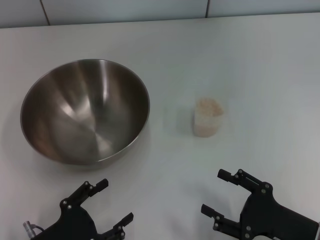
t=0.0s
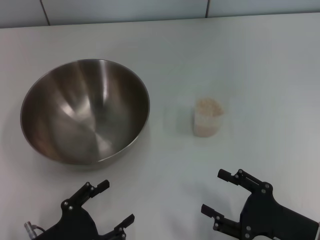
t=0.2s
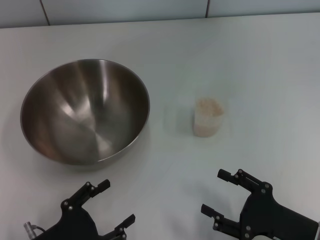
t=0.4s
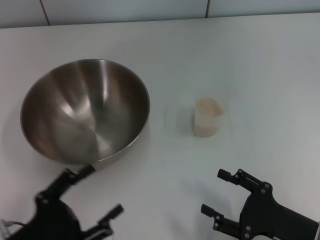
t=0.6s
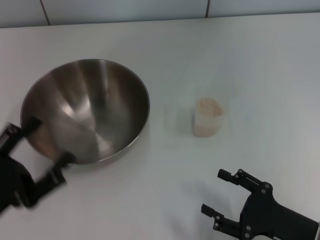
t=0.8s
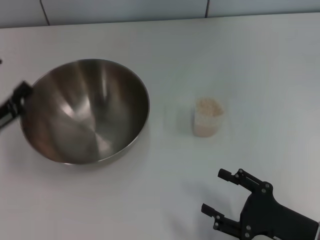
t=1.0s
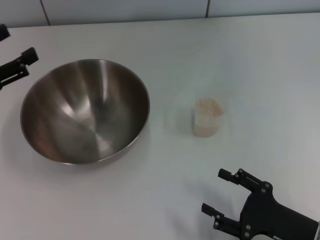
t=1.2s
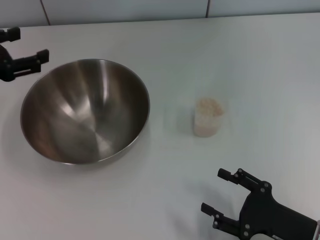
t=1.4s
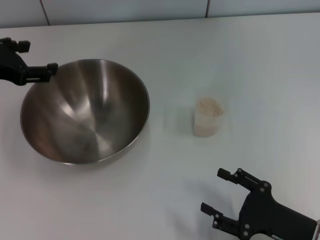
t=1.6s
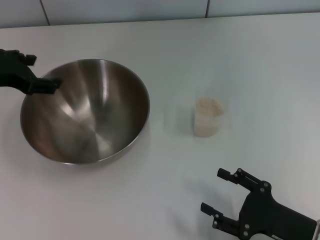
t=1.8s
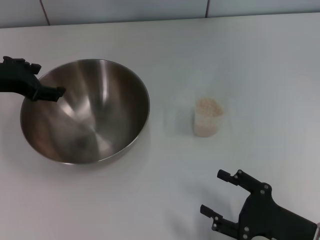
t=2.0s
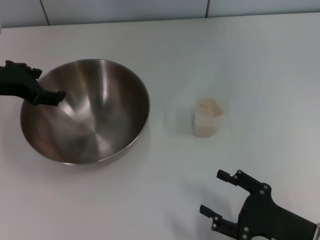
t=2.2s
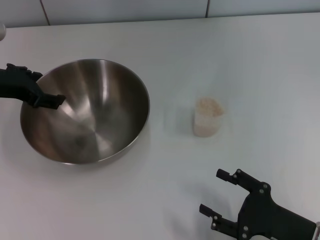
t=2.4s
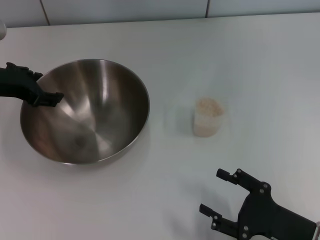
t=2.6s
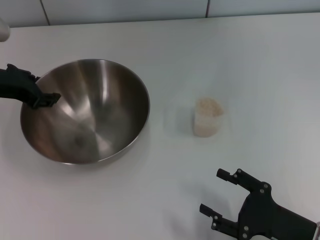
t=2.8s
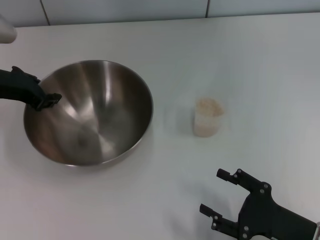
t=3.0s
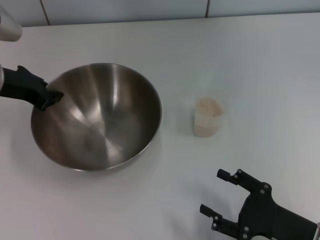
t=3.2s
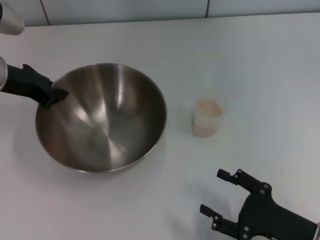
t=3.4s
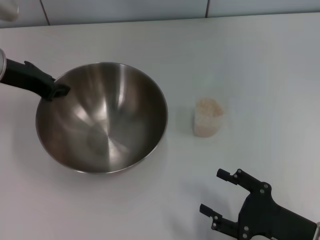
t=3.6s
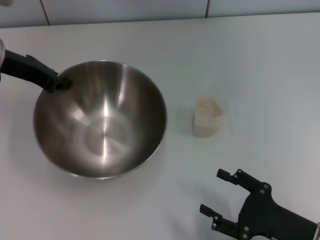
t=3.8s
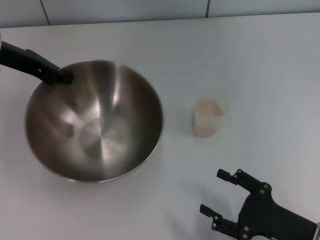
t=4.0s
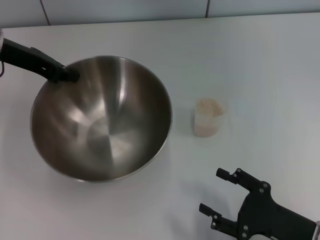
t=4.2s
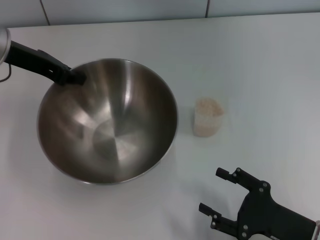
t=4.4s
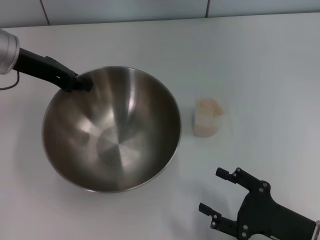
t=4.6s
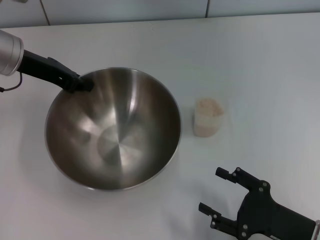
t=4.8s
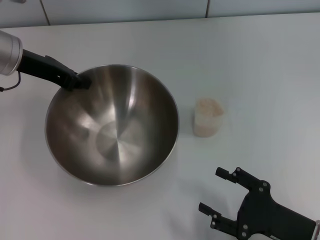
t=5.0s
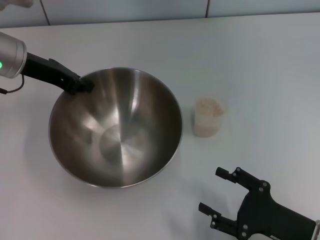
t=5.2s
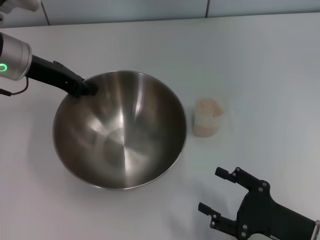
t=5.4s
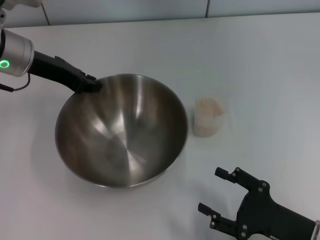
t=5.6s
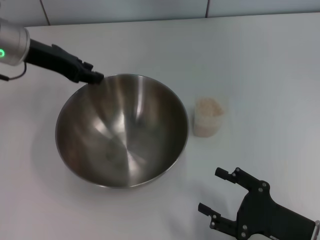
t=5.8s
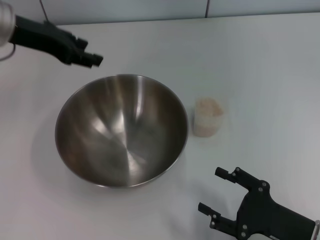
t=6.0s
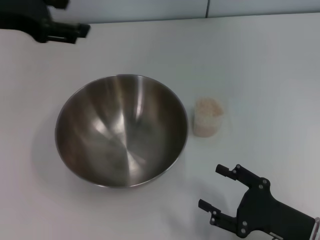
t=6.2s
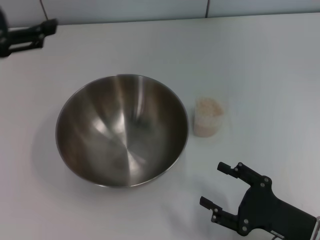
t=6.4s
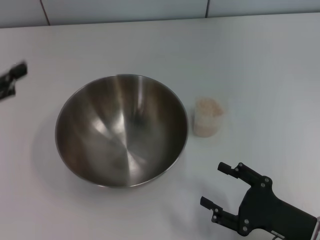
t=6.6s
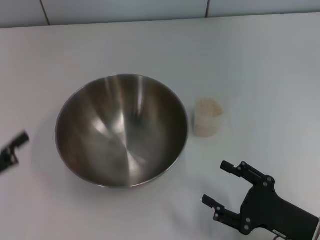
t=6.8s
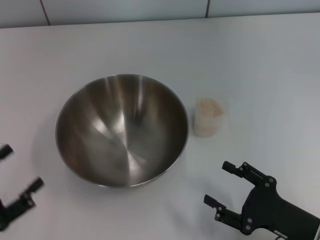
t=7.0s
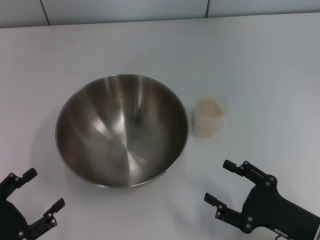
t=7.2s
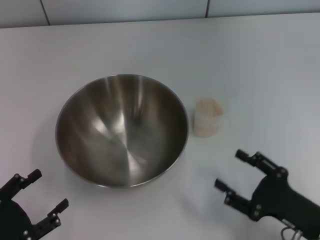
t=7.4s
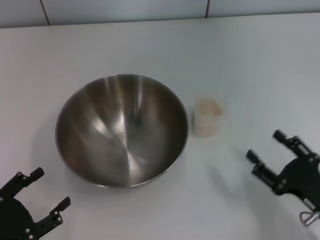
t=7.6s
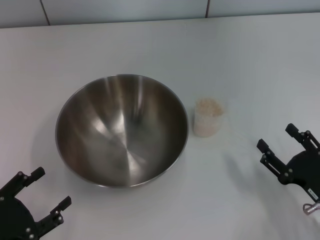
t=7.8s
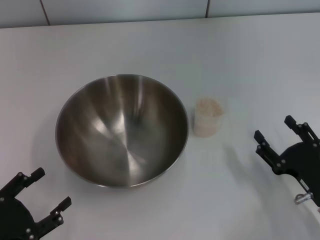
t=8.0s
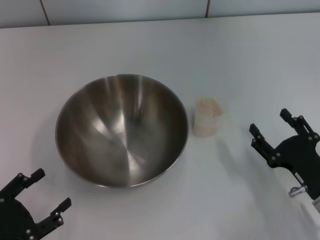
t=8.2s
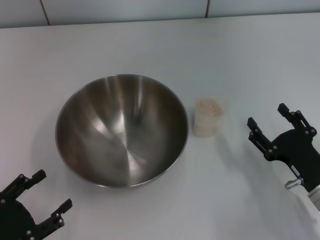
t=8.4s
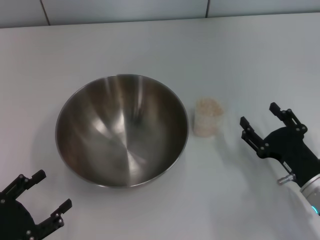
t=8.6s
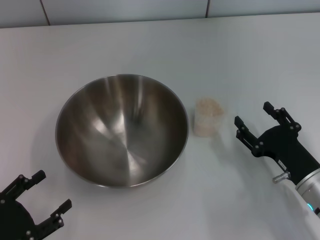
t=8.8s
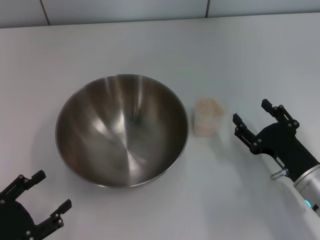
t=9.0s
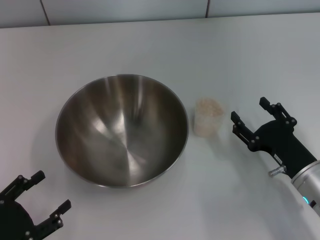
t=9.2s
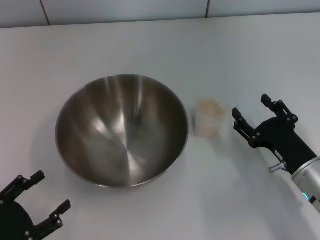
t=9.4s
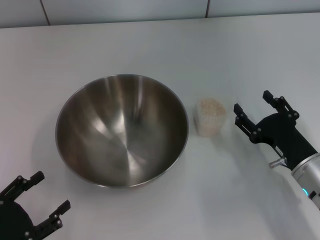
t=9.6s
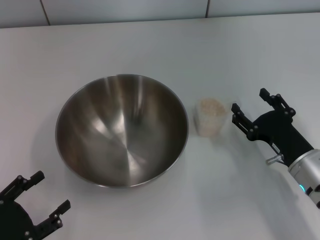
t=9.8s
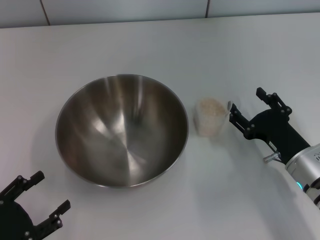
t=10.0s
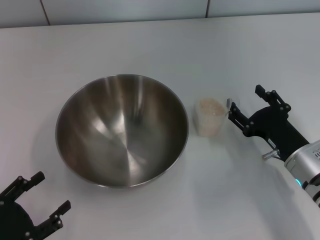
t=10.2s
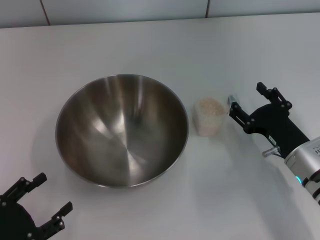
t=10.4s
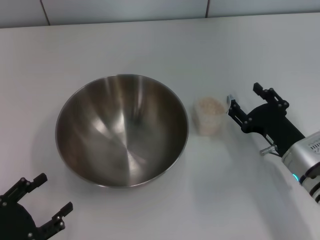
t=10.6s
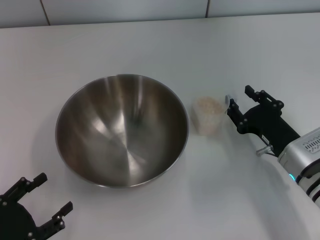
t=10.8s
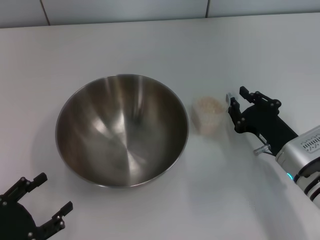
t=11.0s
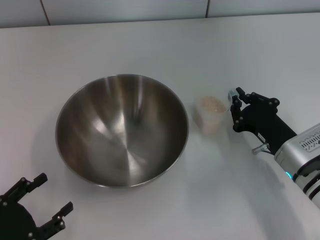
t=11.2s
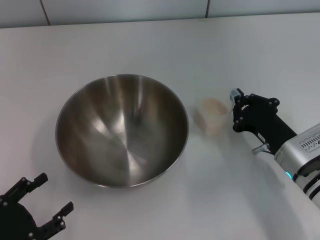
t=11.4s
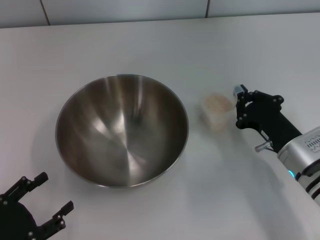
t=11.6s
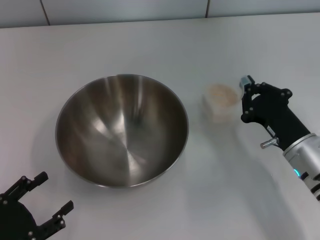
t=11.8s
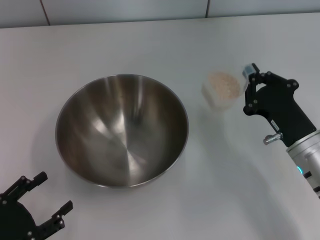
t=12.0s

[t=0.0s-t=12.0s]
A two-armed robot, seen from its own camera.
Task of the whole recording: Place the bowl in the middle of the table with one hand and pour the rice from the grain cup into it with the other hand.
Step, t=0.0s to t=4.0s: Pick up the bowl with the left gripper.
Step, t=4.2s to t=6.4s: Place the bowl in the center of view with the left gripper.
t=0.0s to t=1.6s: The left gripper moves forward and upward, some 30 cm.
t=1.6s to t=3.0s: The left gripper shifts by roughly 5 cm.
t=3.0s to t=4.4s: The left gripper moves some 5 cm, and closes its fingers.
t=4.4s to t=6.0s: The left gripper opens.
t=6.0s to t=7.6s: The left gripper shifts roughly 35 cm backward and downward, and opens its fingers.
t=7.6s to t=9.0s: The right gripper shifts approximately 5 cm forward.
t=9.0s to t=10.4s: The grippers move only a little.
t=10.4s to t=12.0s: The right gripper closes its fingers.

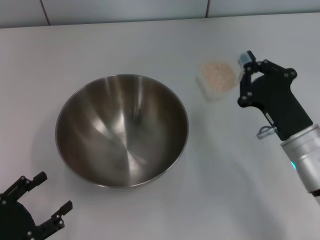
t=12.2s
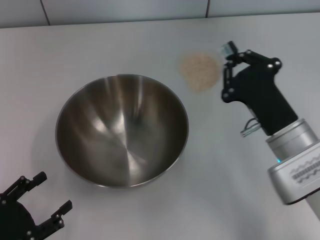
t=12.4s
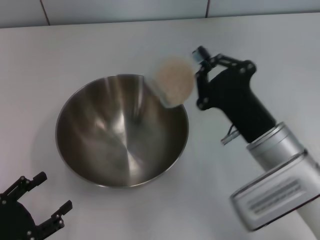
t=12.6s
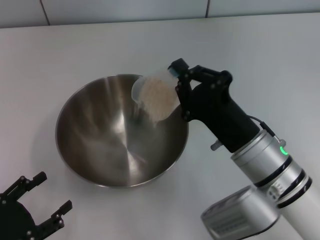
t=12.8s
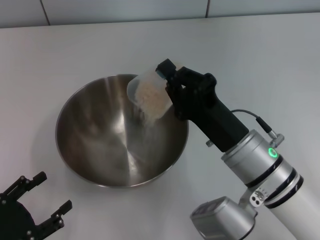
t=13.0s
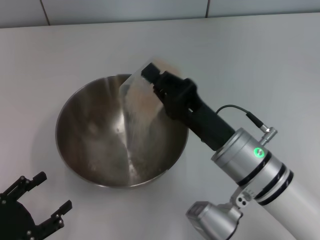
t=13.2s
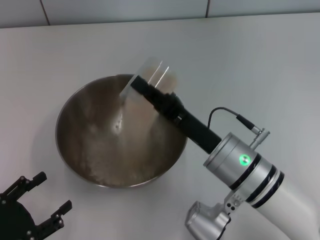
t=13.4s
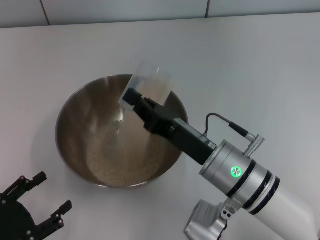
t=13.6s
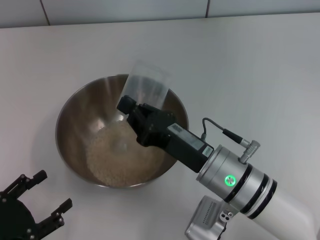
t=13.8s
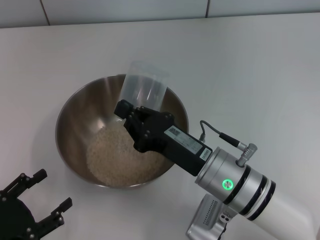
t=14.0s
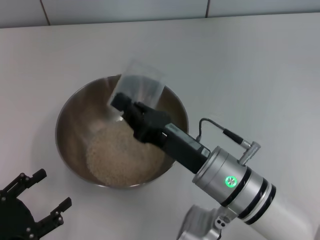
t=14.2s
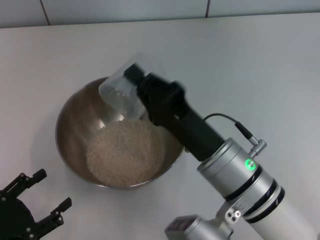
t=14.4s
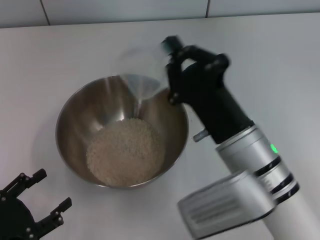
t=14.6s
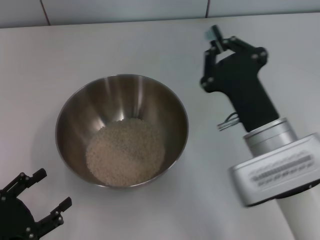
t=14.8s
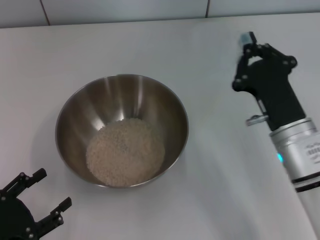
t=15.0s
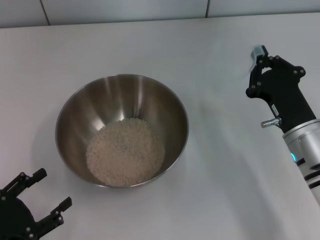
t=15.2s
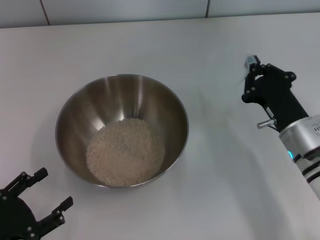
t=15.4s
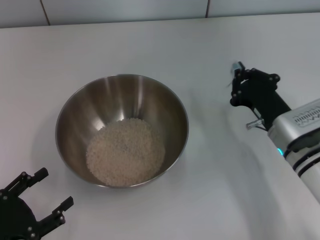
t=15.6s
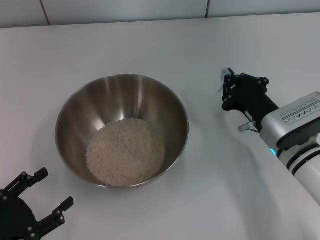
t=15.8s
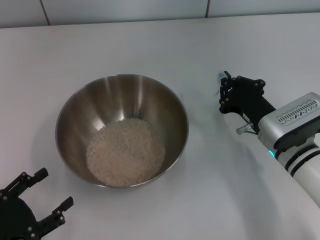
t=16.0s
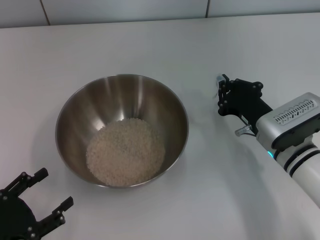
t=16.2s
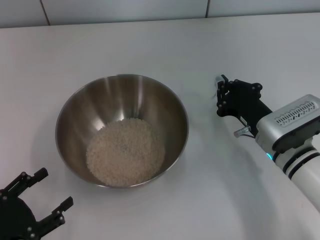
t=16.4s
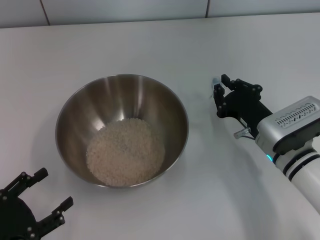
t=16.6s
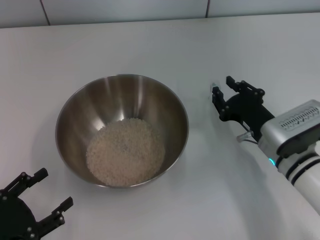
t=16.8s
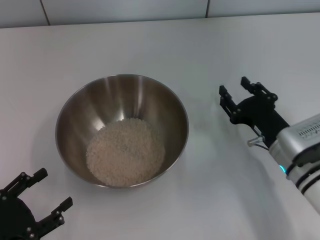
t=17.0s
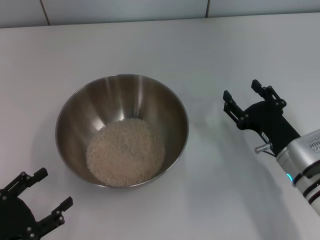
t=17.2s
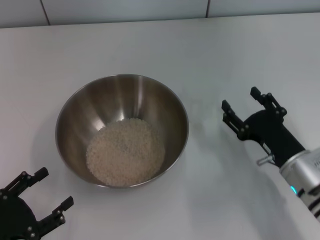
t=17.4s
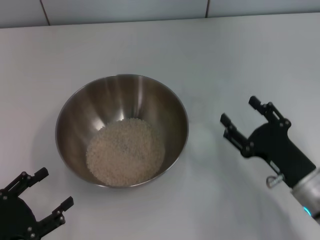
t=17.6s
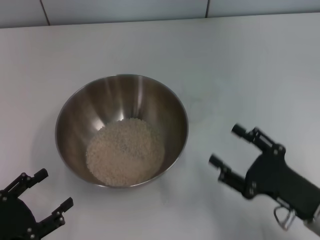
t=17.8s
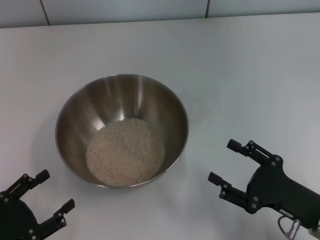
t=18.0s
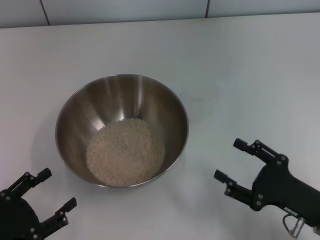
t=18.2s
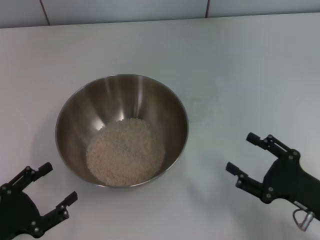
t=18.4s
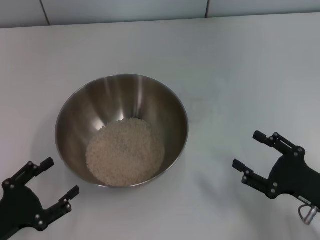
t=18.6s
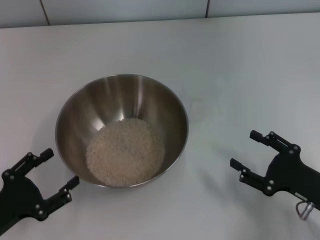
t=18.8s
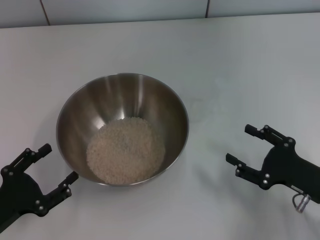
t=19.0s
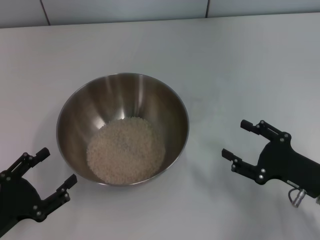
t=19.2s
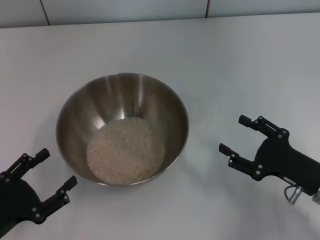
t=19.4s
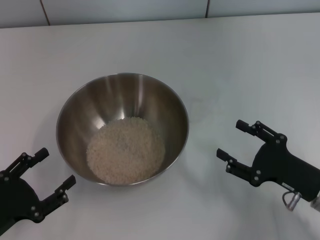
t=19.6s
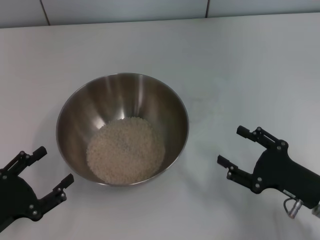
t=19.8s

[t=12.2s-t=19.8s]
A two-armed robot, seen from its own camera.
Task of the whole recording: Place the bowl in the middle of the table with one hand and pour the rice from the grain cup into it with the other hand.
Step, t=12.4s to t=14.6s: Pour the rice from the cup into the bowl with the right gripper.
Step, t=15.0s to t=17.0s: Place the cup on the table with the right gripper.
t=12.2s to t=13.8s: The right gripper heads to the left, covering approximately 10 cm.
t=13.8s to t=15.2s: The right gripper travels to the right by approximately 10 cm.
t=15.2s to t=16.8s: There are only small adjustments of the grippers.
t=16.8s to t=18.2s: The right gripper is displaced backward and to the right by some 15 cm, and opens.
t=18.2s to t=19.8s: The grippers stay close to where they were, moving slightly.

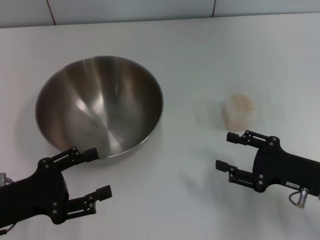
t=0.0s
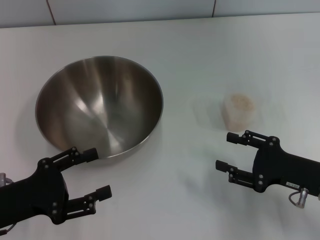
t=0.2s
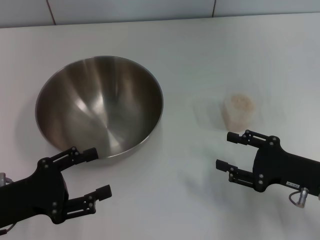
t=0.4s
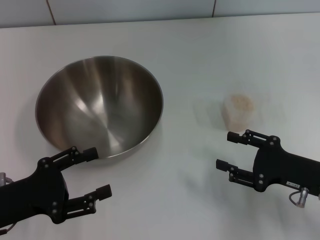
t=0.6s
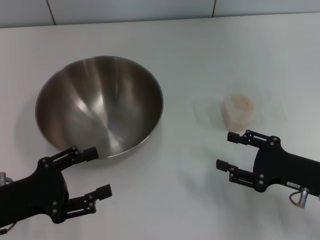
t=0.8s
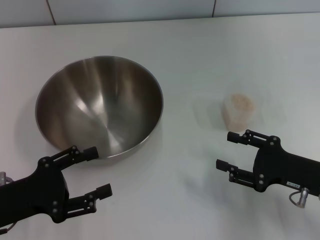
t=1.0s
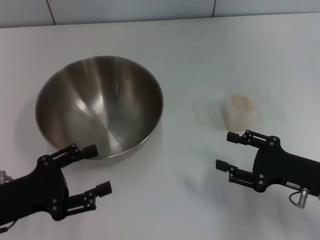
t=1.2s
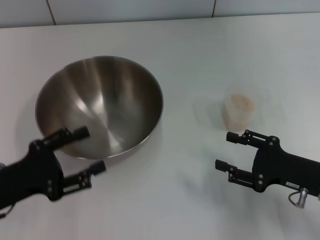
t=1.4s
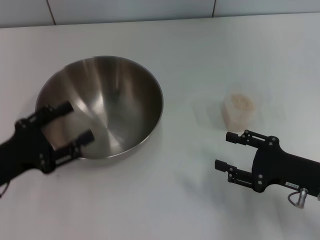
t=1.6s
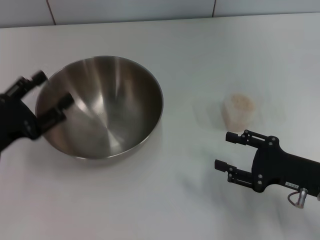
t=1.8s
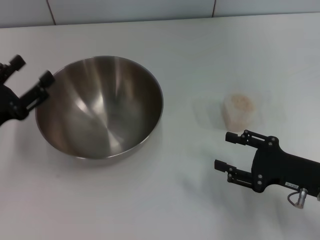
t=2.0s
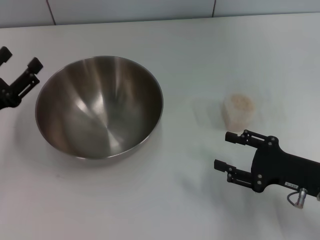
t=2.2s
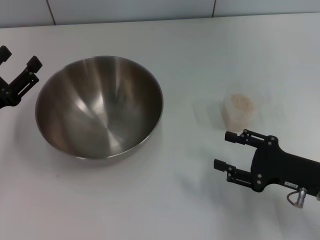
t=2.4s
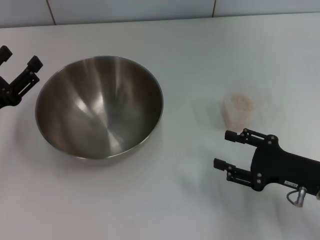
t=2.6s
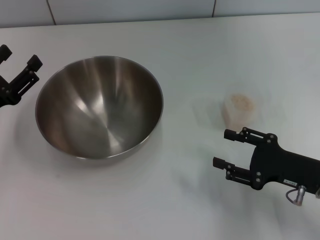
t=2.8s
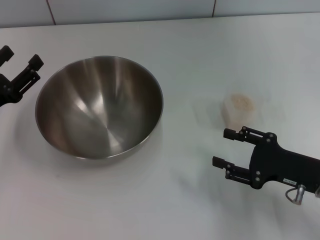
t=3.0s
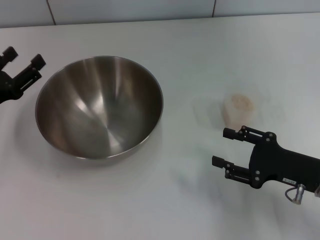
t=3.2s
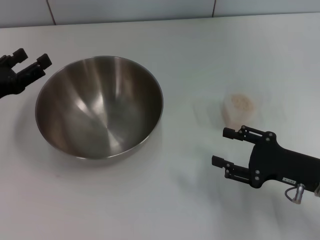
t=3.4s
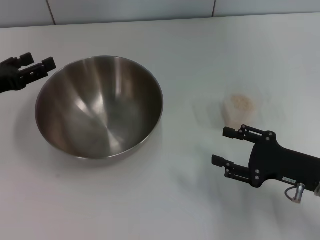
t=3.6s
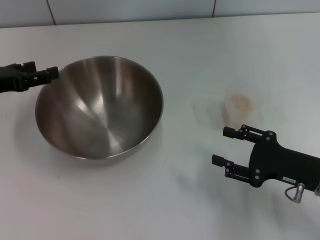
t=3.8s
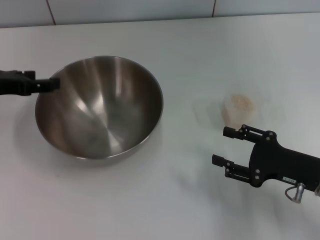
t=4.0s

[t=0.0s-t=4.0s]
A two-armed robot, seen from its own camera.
Task of the whole recording: Place the bowl in the middle of the table with one hand and pour the rice from the grain cup into it with the other hand.
t=0.0s to t=1.4s: The grippers stay close to where they were, moving slightly.
t=1.4s to t=2.6s: The left gripper is displaced forward by about 5 cm.
t=2.6s to t=4.0s: The left gripper shifts about 10 cm forward and upward.
